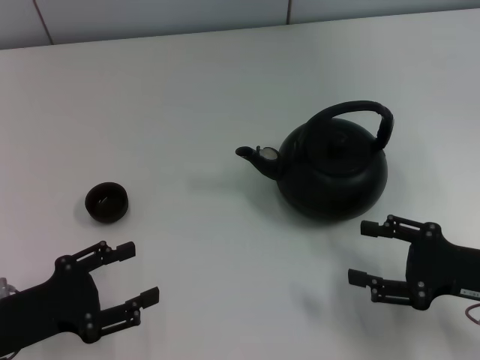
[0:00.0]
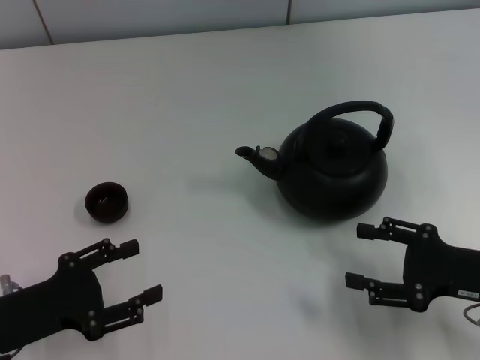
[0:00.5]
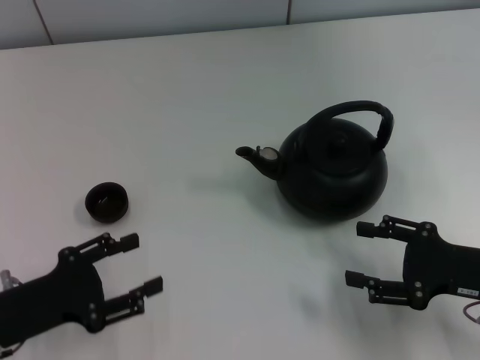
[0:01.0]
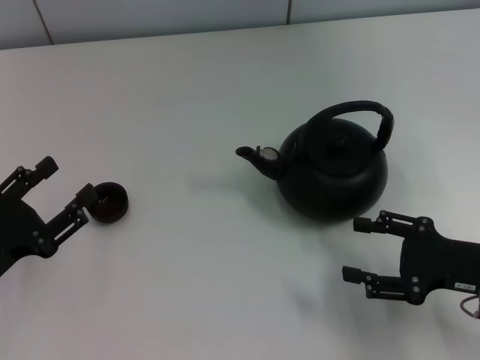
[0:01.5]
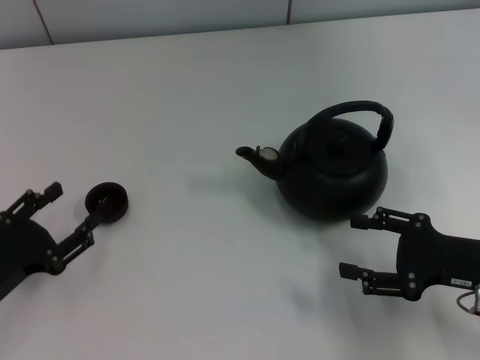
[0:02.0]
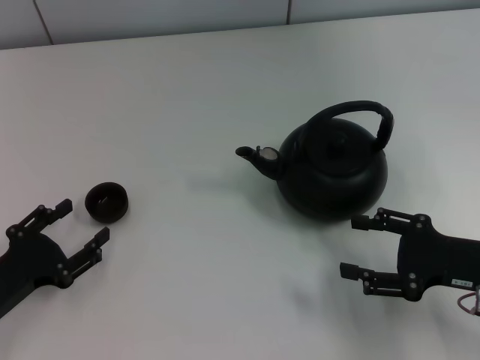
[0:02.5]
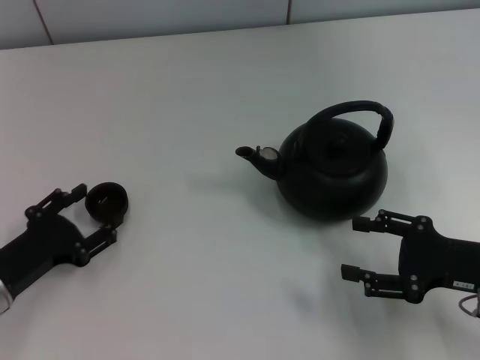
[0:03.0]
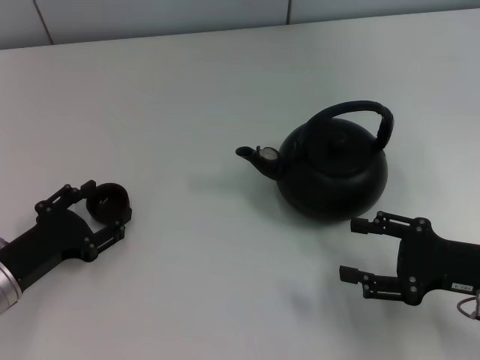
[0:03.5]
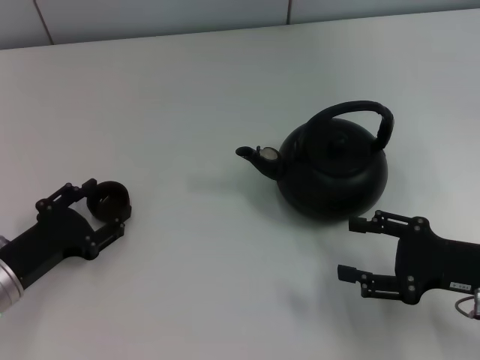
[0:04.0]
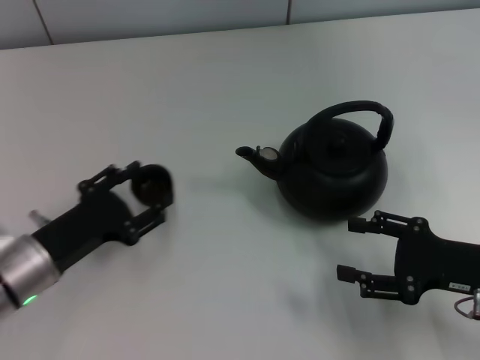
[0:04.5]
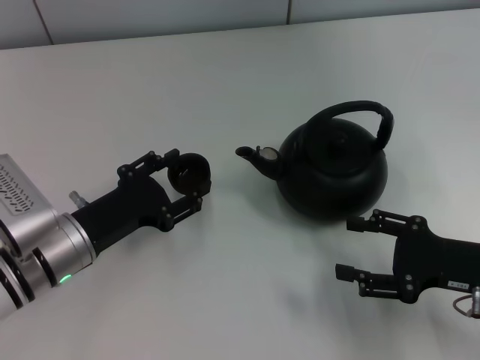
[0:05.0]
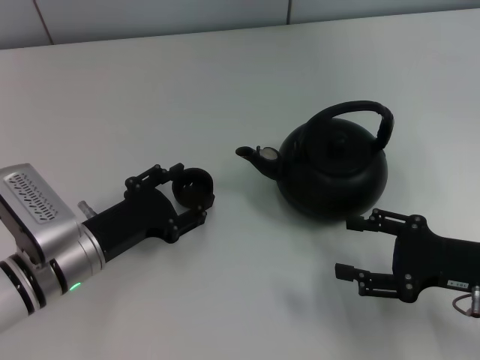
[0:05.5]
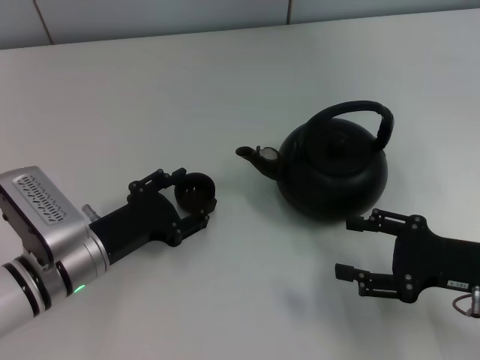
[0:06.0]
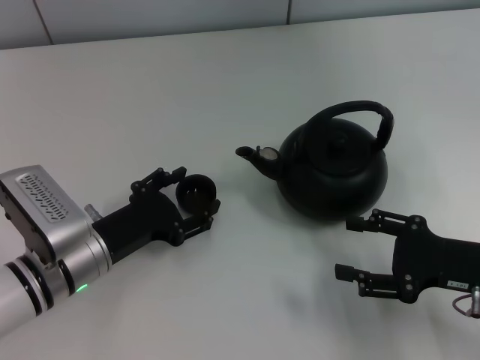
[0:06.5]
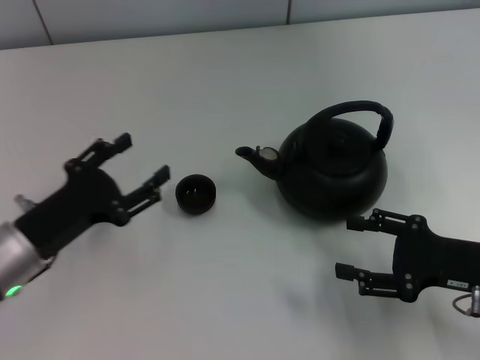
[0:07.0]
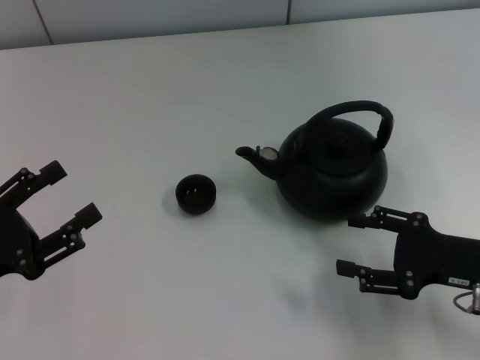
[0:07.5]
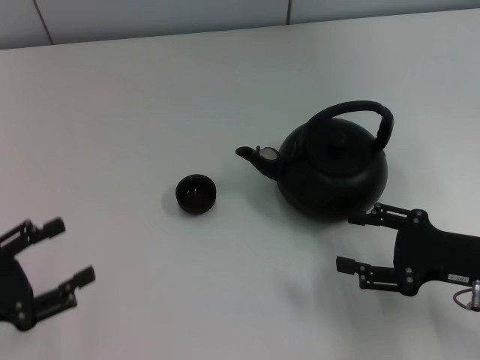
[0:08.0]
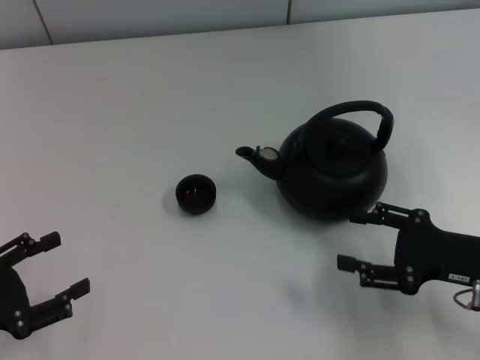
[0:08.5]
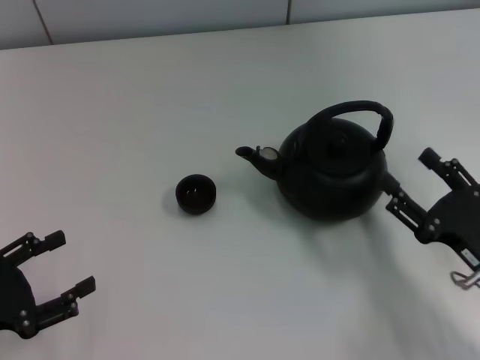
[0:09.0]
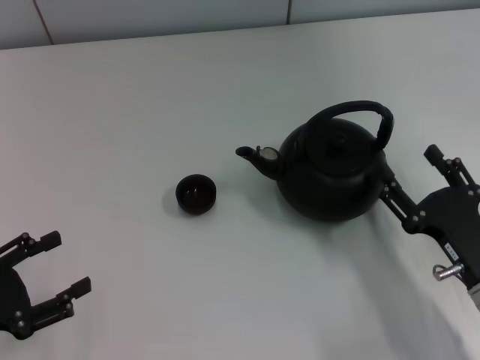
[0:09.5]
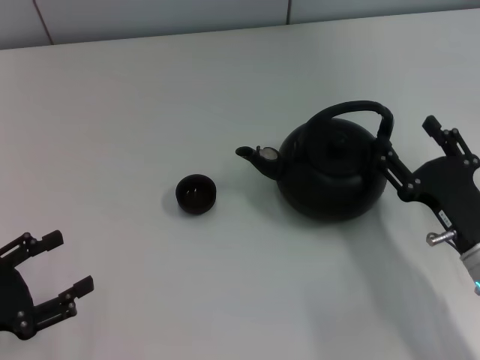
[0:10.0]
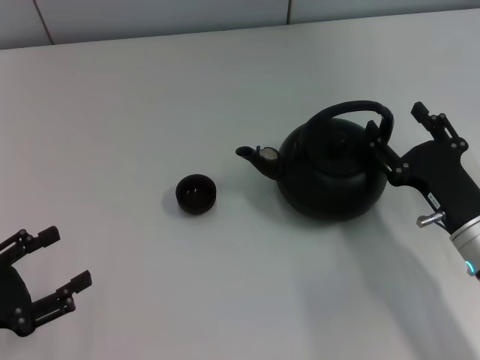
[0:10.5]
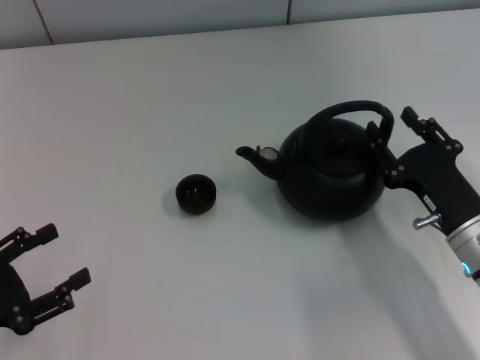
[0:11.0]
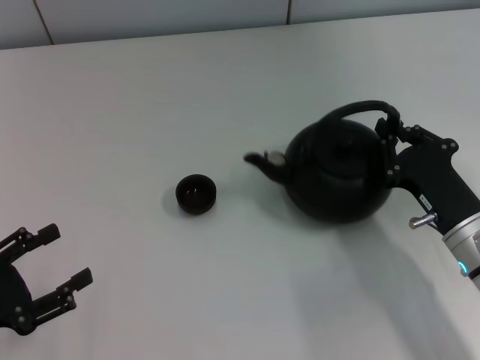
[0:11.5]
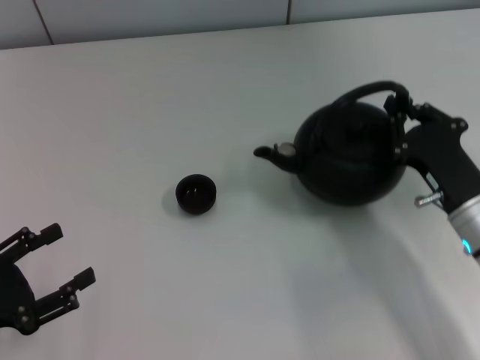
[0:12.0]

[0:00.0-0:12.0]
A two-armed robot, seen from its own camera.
Task of the whole recording: Grasp the handle of the teapot with one hand and pour tea into the teacup.
Step, 0:00.0 to 0:04.0: Pick up the teacup with the left gripper.
Step, 0:04.5 to 0:07.5: Place the teacup in the center of view with the left gripper.
0:02.0 to 0:04.0: The grippers stay close to where they were, moving slightly.
0:04.0 to 0:06.0: The left gripper heads to the right, covering roughly 10 cm.
0:06.0 to 0:08.0: The left gripper heads to the left and backward, covering roughly 15 cm.
0:08.0 to 0:10.0: The right gripper ends up approximately 5 cm from where it was.
0:10.0 to 0:12.0: The right gripper closes its fingers.

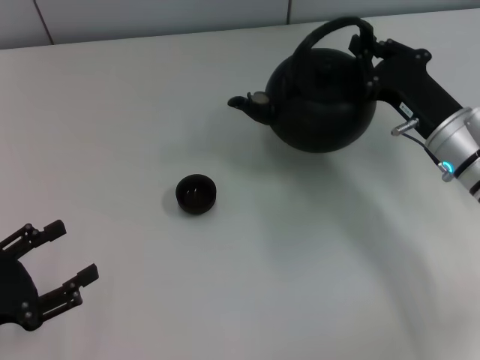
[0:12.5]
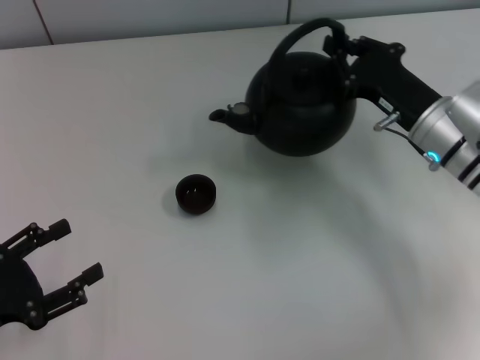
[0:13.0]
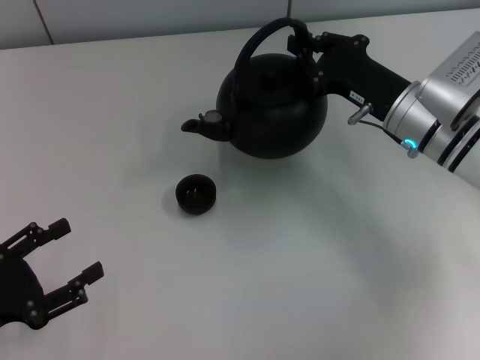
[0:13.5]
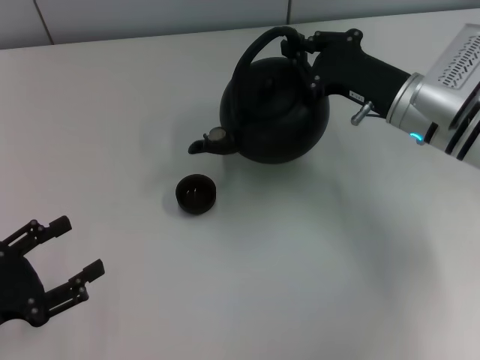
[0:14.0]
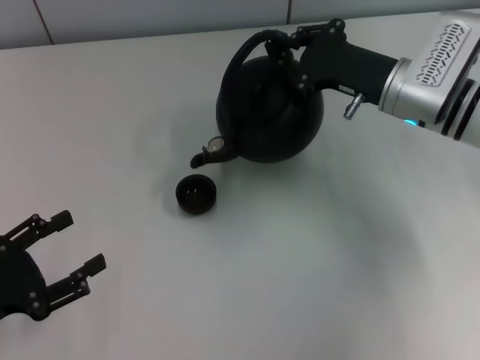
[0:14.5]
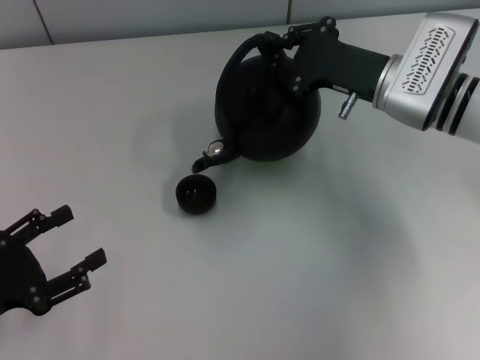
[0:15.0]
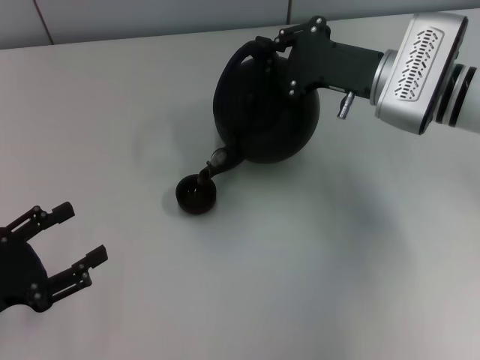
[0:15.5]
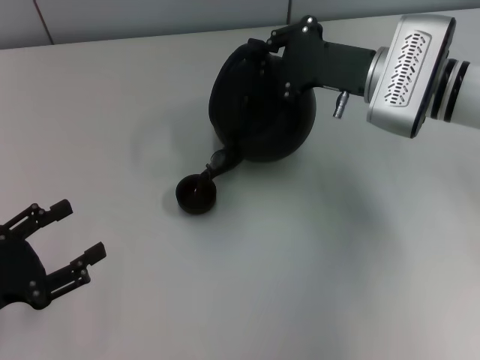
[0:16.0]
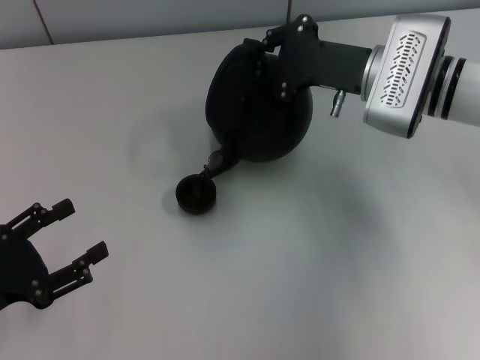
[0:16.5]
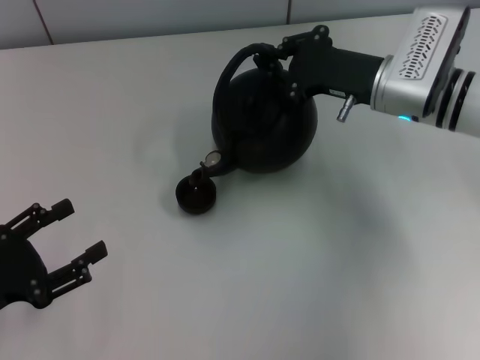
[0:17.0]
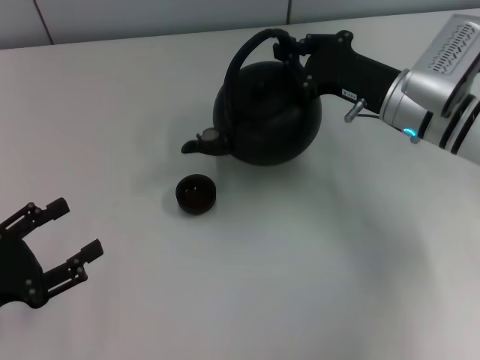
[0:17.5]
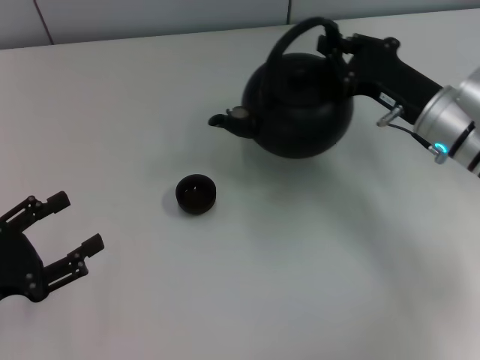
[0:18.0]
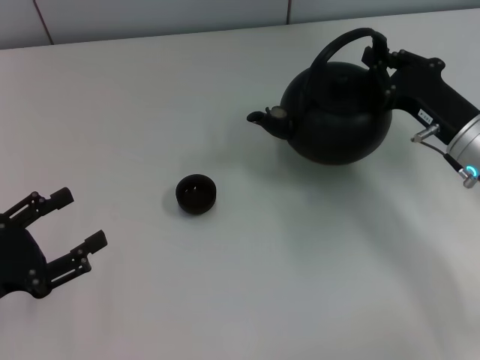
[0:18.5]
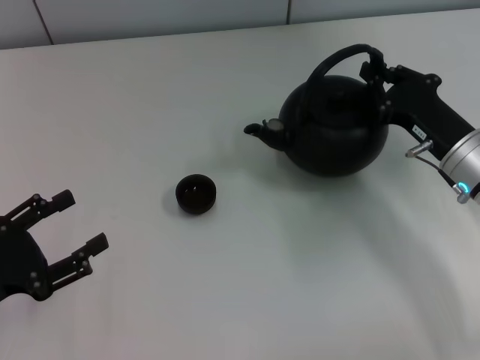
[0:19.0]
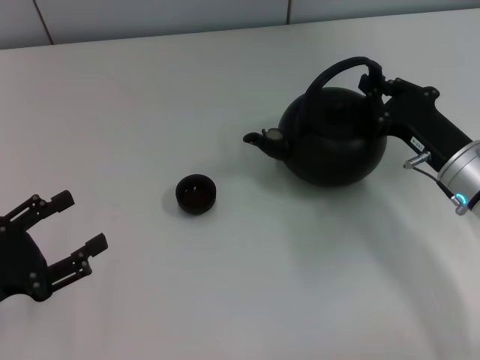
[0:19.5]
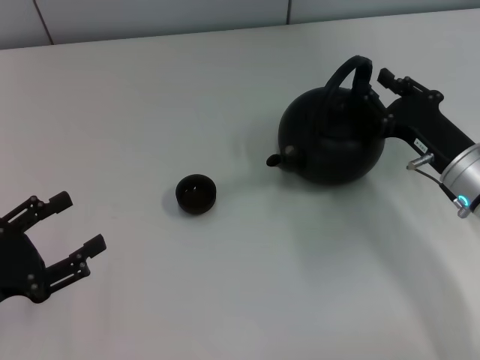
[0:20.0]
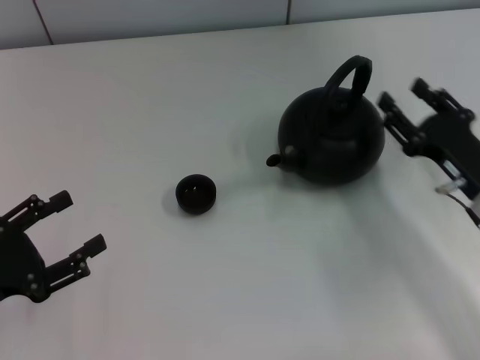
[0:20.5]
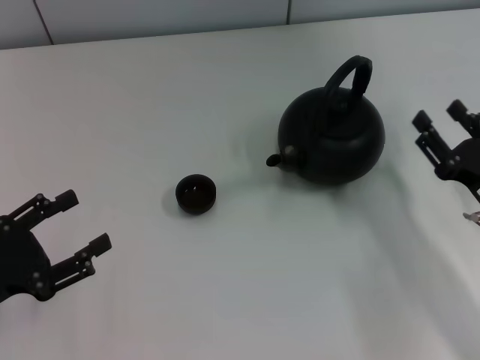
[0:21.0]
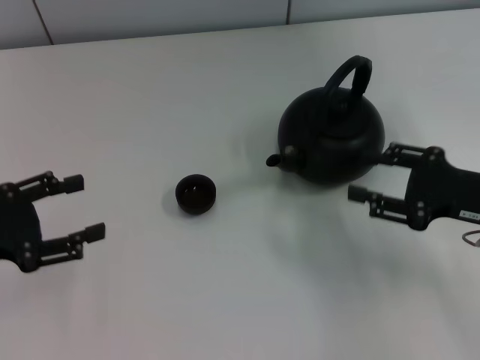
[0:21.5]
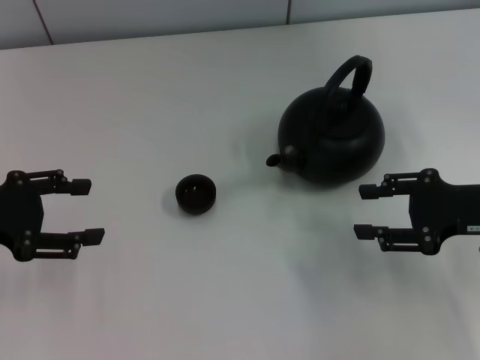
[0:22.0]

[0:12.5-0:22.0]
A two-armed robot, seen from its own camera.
Task of the whole recording: Grasp the handle of the teapot with one hand and pour tea into the teacup.
Step, 0:18.0 to 0:20.5: Put down the teapot with the right gripper.
0:12.5 to 0:14.5: The right gripper heads forward, covering some 5 cm.
0:16.5 to 0:18.0: The right gripper heads to the right and backward, covering about 5 cm.
0:18.0 to 0:20.0: The right gripper shifts by approximately 5 cm.
0:20.0 to 0:22.0: The right gripper is displaced upward by about 5 cm, and opens up, while the left gripper is displaced forward and upward by roughly 10 cm.
